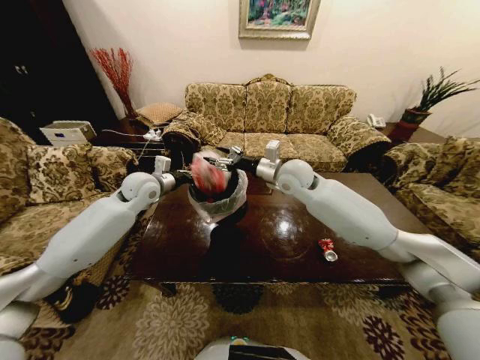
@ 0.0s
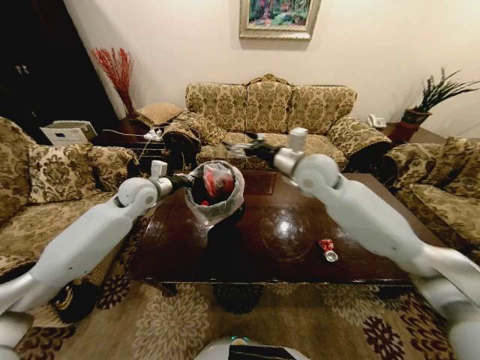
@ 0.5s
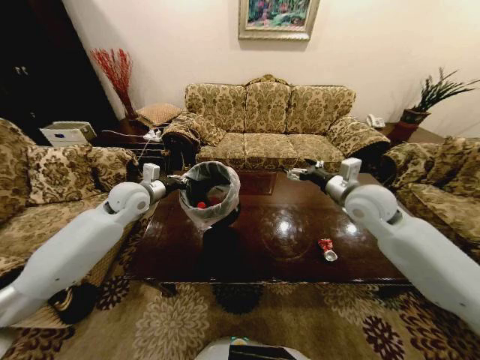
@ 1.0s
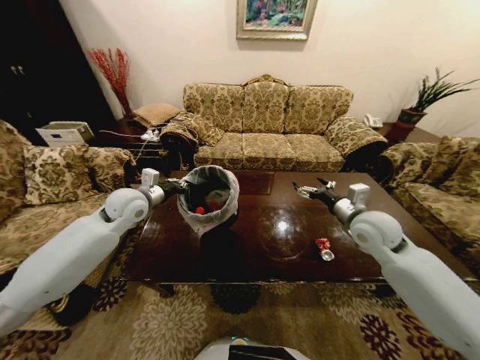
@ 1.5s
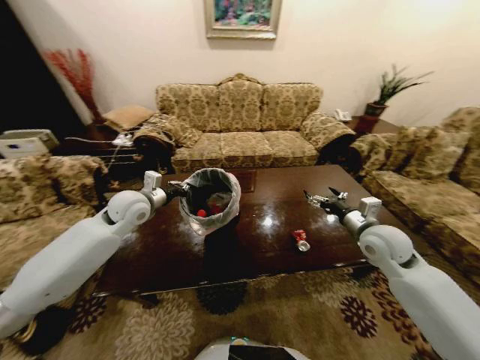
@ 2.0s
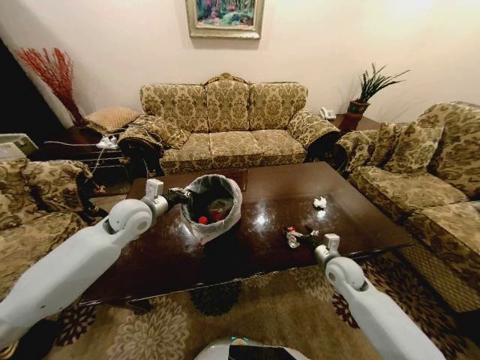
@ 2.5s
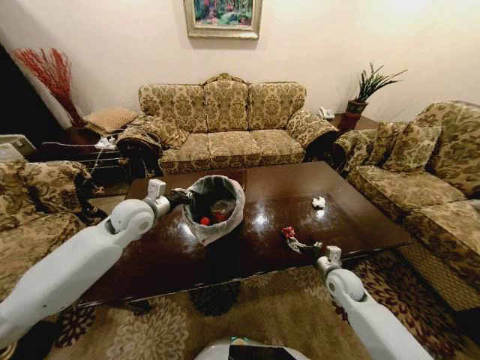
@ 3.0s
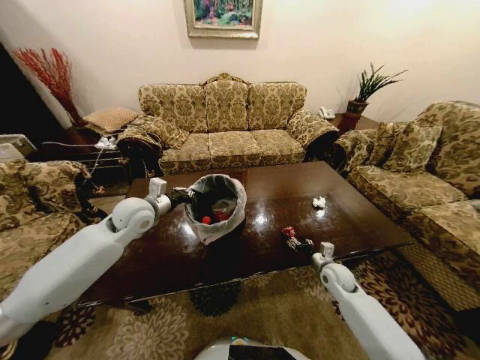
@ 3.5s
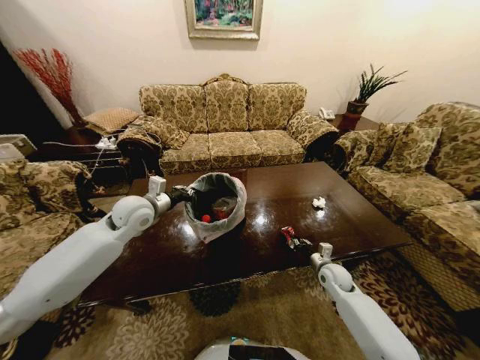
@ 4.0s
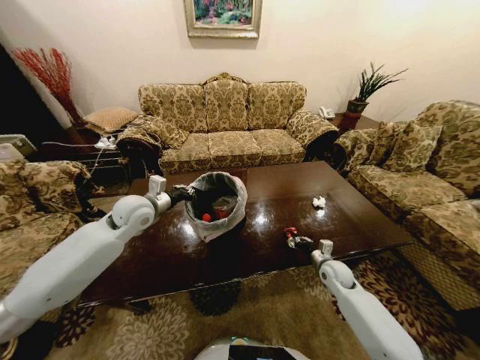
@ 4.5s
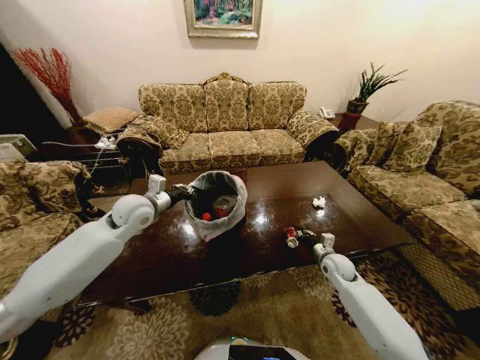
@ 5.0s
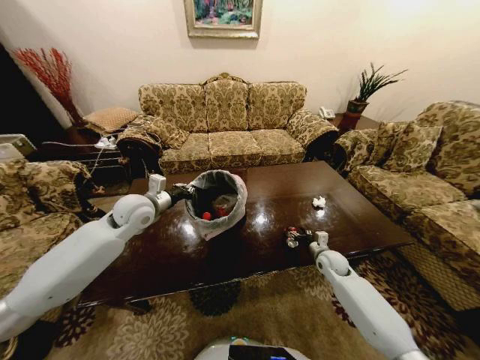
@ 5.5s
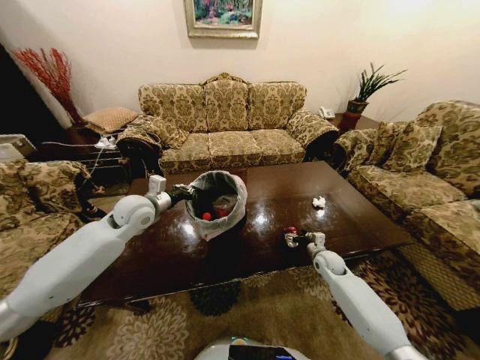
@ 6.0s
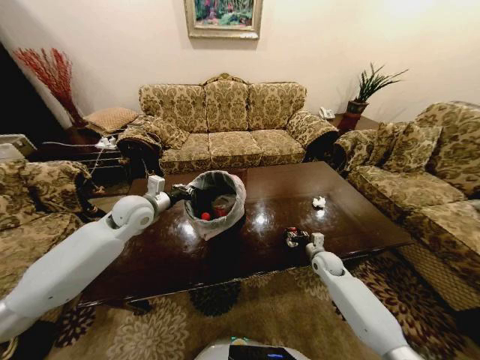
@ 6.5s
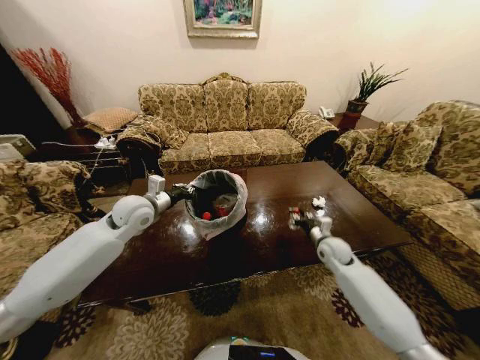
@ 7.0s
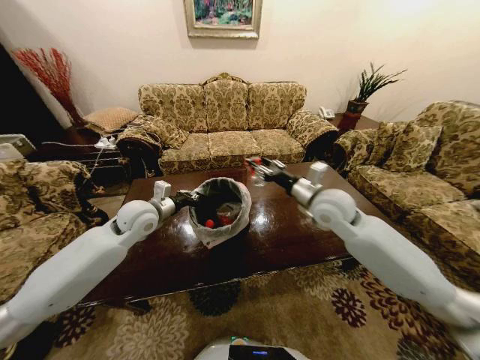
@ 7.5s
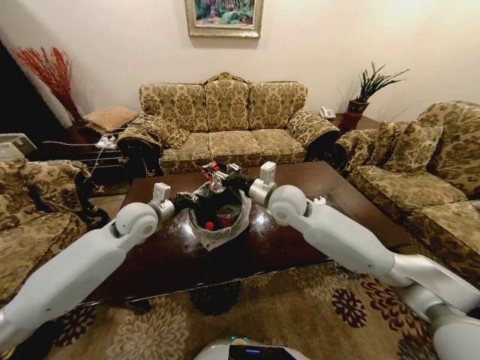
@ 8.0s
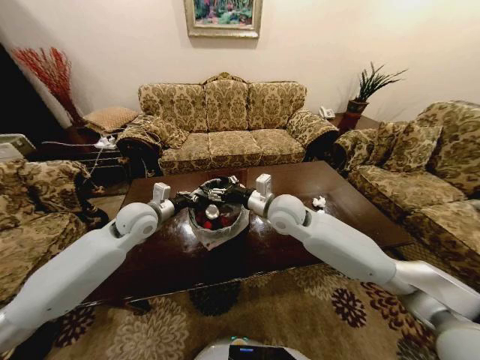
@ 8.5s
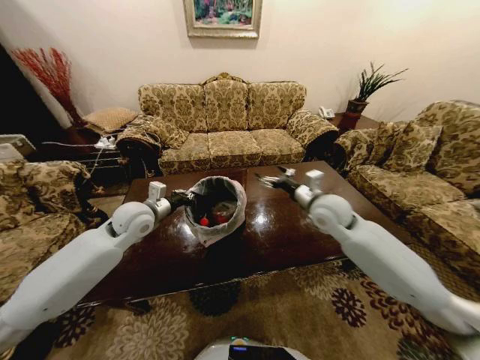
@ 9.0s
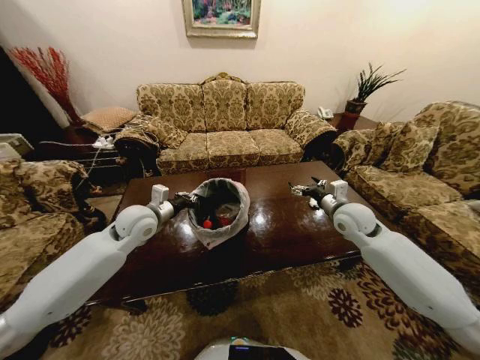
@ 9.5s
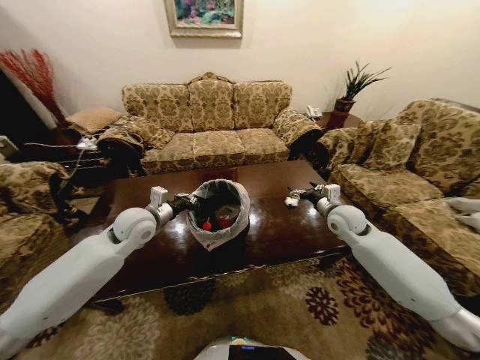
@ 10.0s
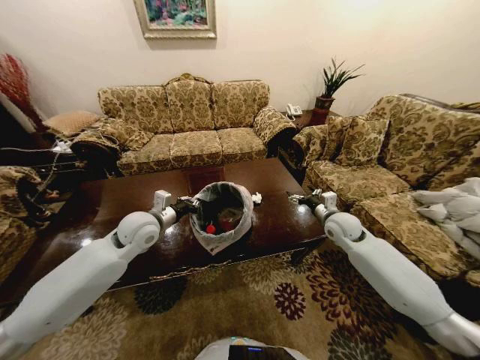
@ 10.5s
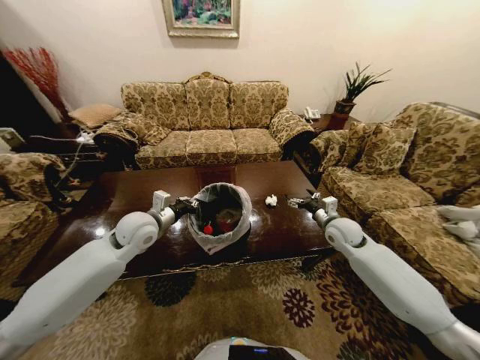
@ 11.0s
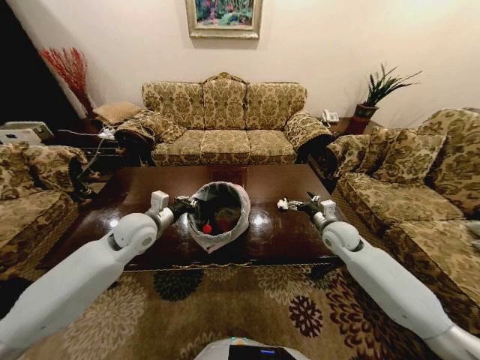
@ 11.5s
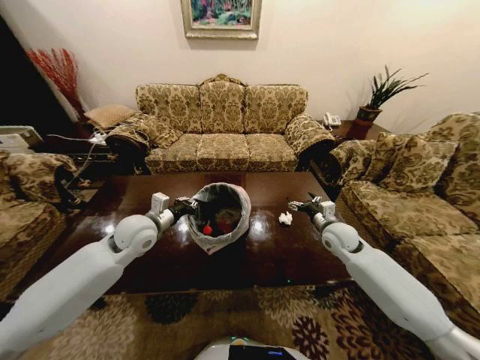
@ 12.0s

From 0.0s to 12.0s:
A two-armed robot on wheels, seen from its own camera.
Task of the whole recording: Move to the front of the table and place the trash on the table into the trash bin.
From 0.0s to 2.0s: The left gripper heads backward, covering roughly 5 cm. Meanwhile the right gripper shifts about 30 cm to the right, backward and downward, and opens up.
From 2.0s to 4.0s: The right gripper travels downward by about 25 cm, and closes its fingers.
From 4.0s to 6.0s: The right gripper travels forward by some 5 cm, and opens up.
From 6.0s to 8.0s: The right gripper heads upward and to the left, covering about 35 cm, and closes up.
From 8.0s to 10.0s: The right gripper moves to the right and downward, roughly 25 cm, and opens up.
From 10.0s to 12.0s: The right gripper is displaced downward by approximately 5 cm.

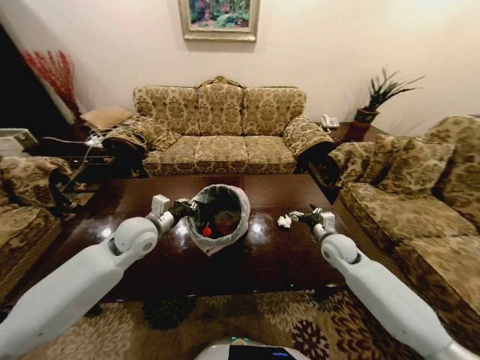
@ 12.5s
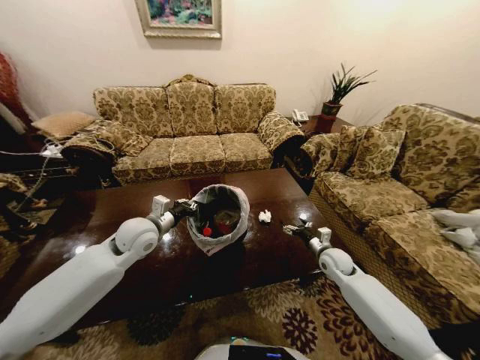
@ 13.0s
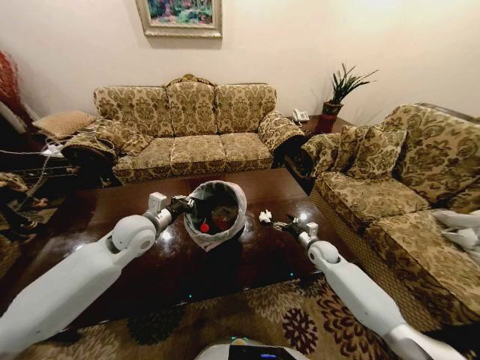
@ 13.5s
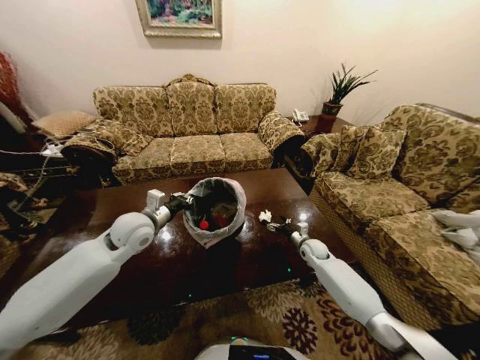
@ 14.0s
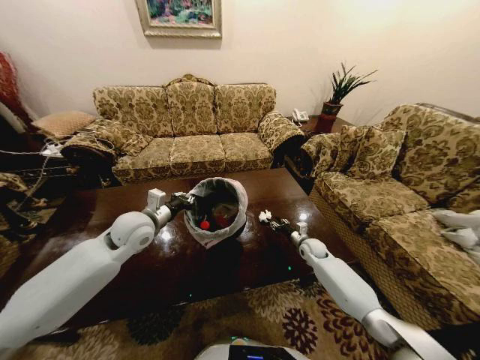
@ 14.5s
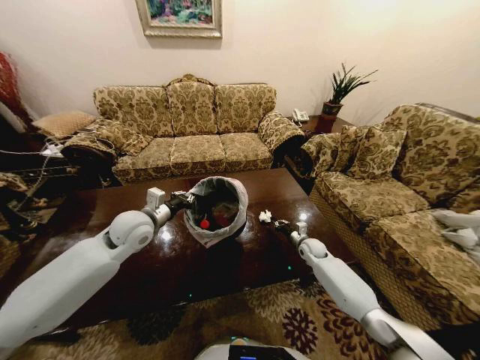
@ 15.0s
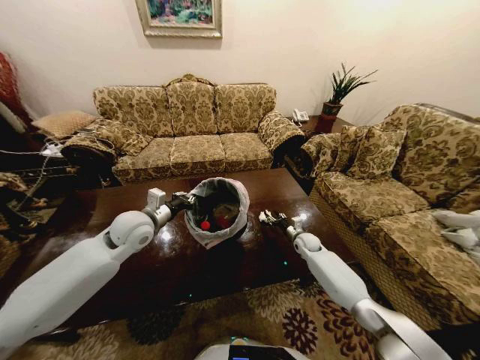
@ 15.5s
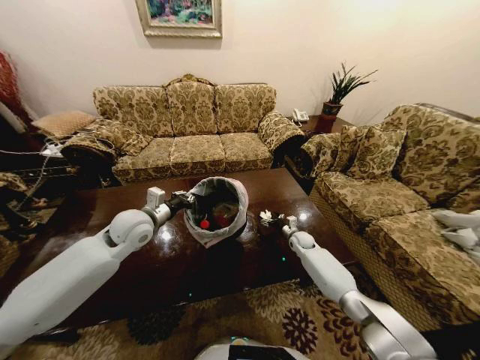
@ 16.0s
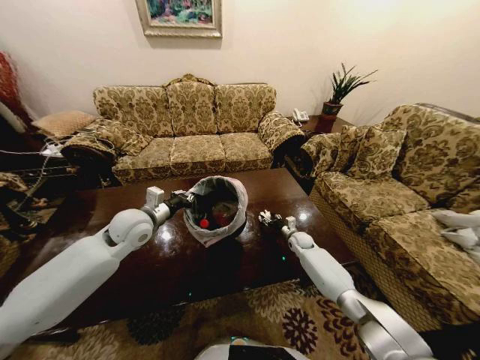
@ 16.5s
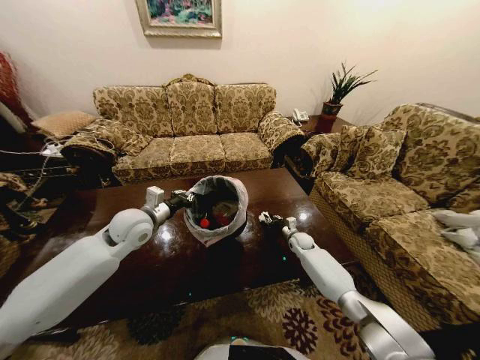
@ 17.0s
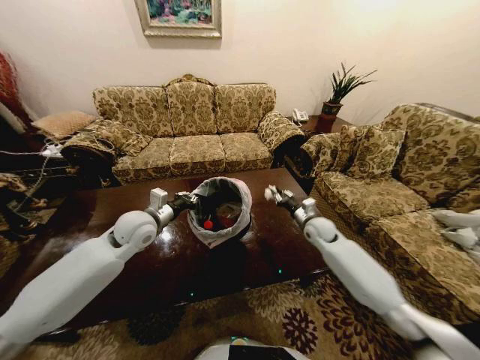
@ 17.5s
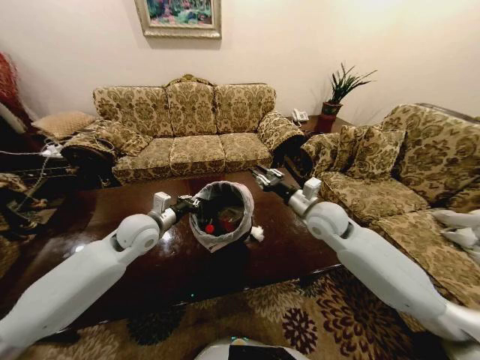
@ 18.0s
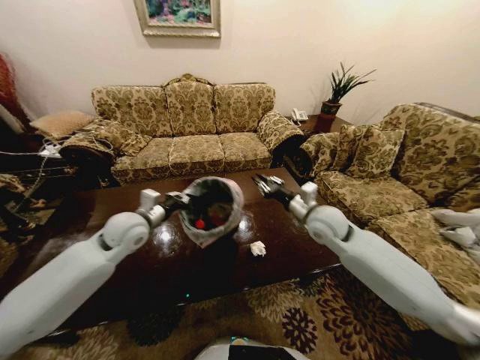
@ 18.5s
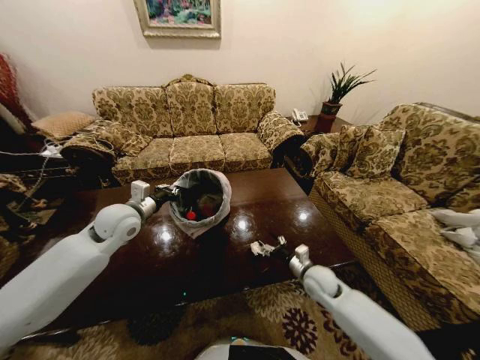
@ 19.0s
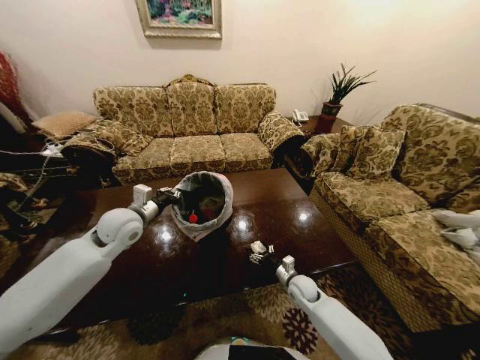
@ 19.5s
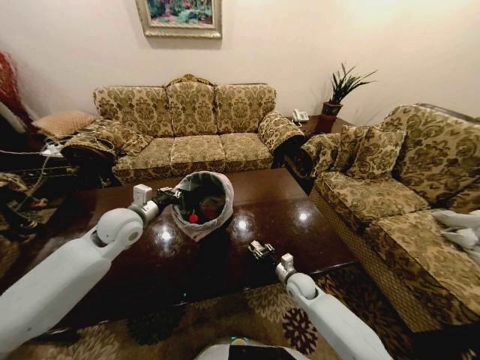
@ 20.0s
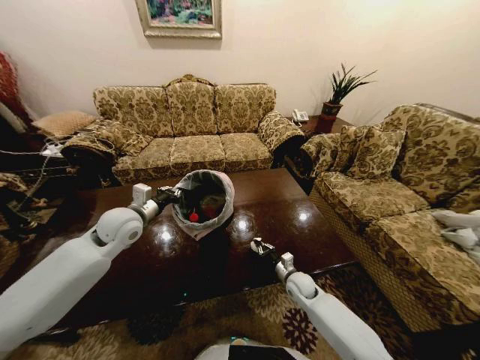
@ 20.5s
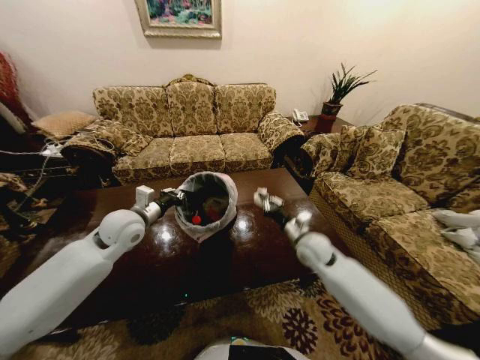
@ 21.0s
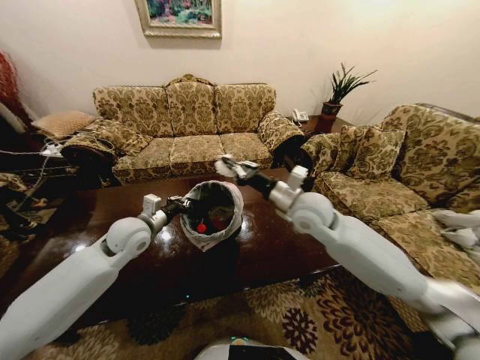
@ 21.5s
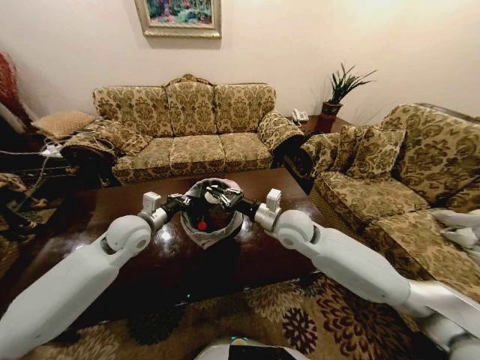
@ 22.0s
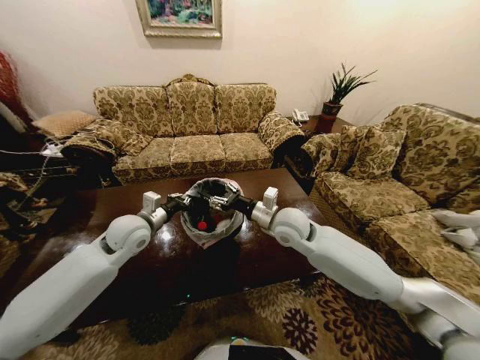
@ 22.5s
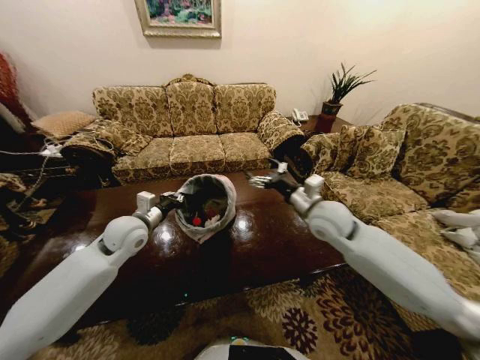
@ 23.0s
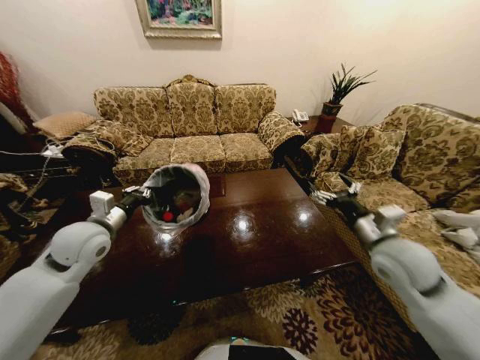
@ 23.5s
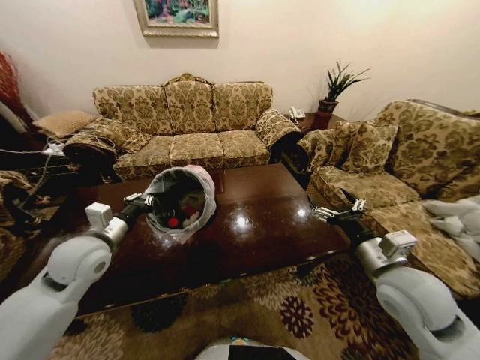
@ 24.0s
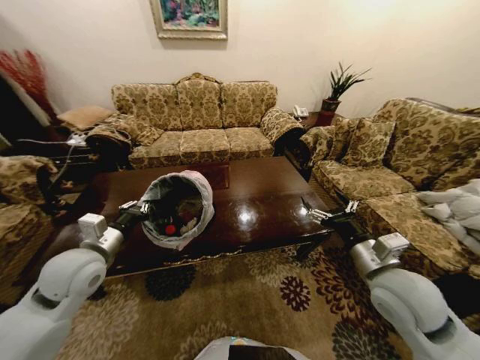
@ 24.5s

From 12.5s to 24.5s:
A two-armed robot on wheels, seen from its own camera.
Task of the whole recording: Move to the front of the table and place the trash on the table into the trash bin.
From 12.5s to 14.5s: The right gripper travels downward and forward by roughly 15 cm, and closes up.
From 14.5s to 16.5s: The right gripper ends up roughly 5 cm from where it was, and closes, then opens again.
From 16.5s to 18.5s: The right gripper heads upward and backward, covering some 30 cm, and closes.
From 18.5s to 20.5s: The right gripper is displaced downward by roughly 30 cm, and opens, then closes once more.
From 20.5s to 22.5s: The right gripper heads upward, covering about 30 cm, and opens its fingers.
From 22.5s to 24.5s: The right gripper shifts roughly 25 cm to the right and backward, and opens up. The left gripper heads backward, covering approximately 10 cm.

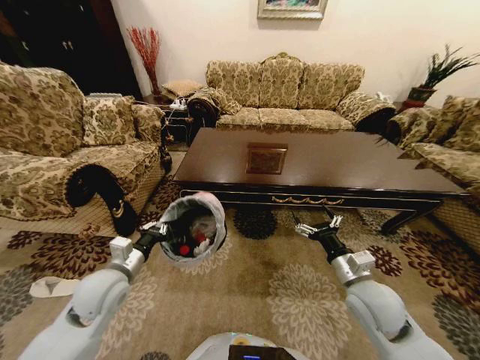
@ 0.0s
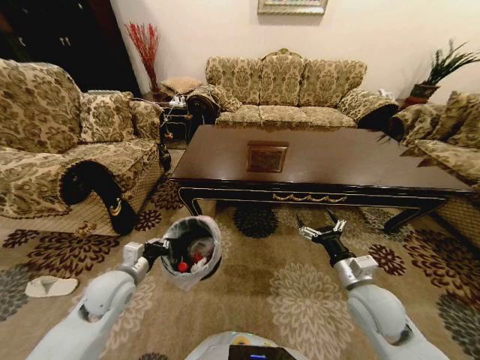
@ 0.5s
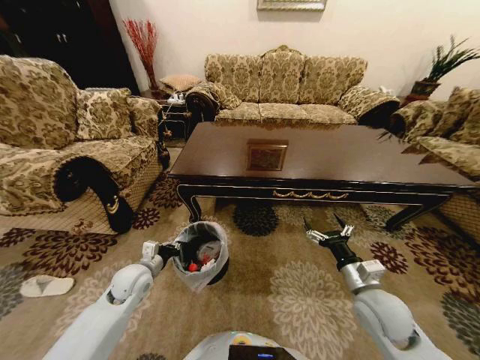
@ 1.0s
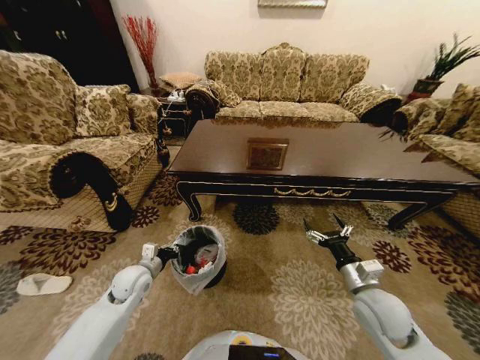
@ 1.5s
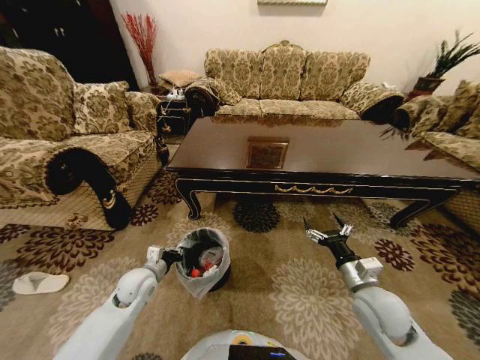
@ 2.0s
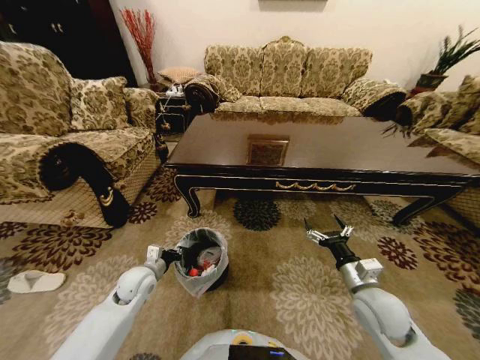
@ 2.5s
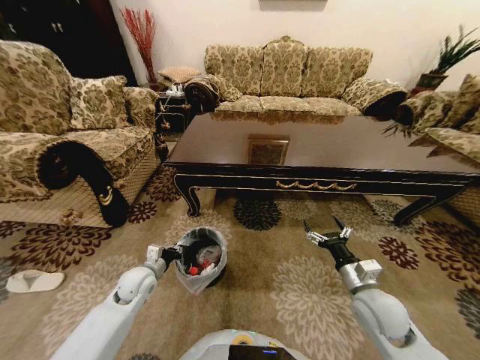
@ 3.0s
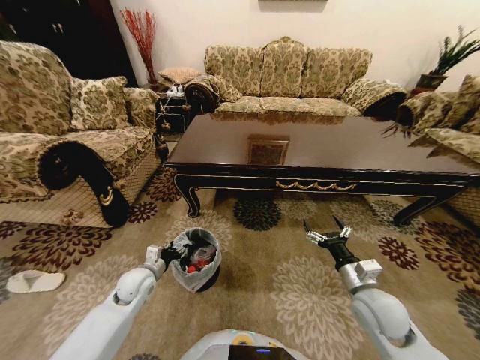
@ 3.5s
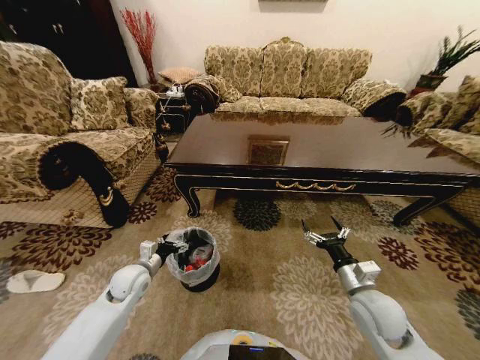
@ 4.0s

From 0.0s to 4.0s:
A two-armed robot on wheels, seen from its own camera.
Task of the whole recording: Move to the front of the table and place the trash on the table into the trash bin.
From 0.0s to 2.0s: The left gripper goes approximately 10 cm downward.
From 2.0s to 4.0s: The left gripper opens its fingers.
